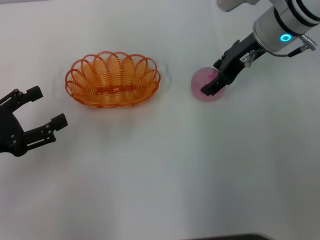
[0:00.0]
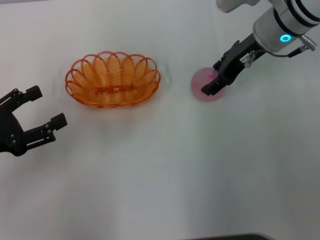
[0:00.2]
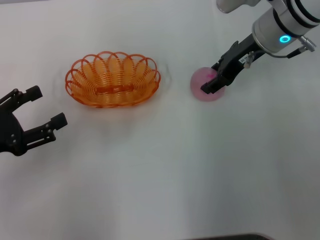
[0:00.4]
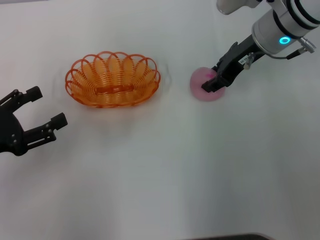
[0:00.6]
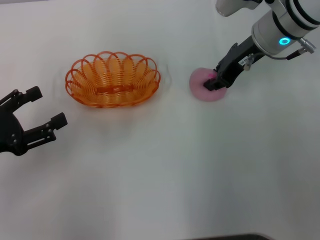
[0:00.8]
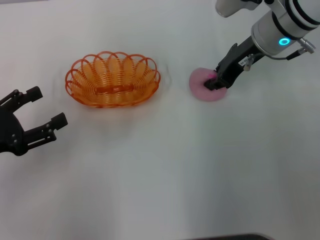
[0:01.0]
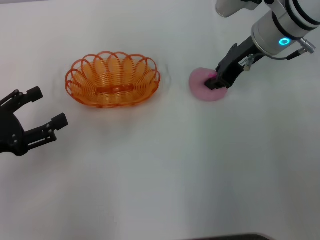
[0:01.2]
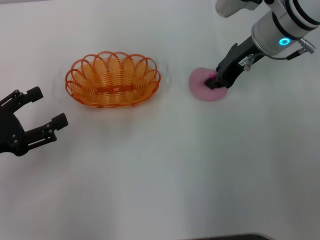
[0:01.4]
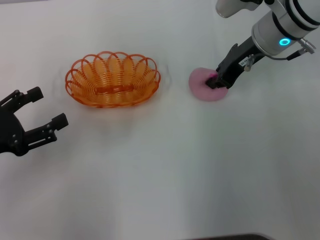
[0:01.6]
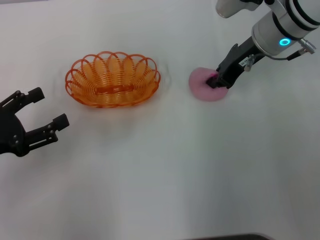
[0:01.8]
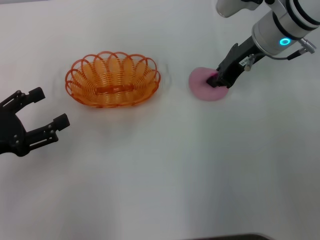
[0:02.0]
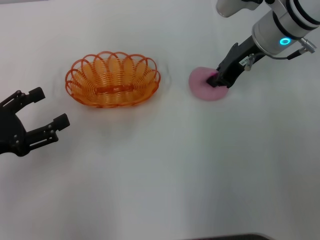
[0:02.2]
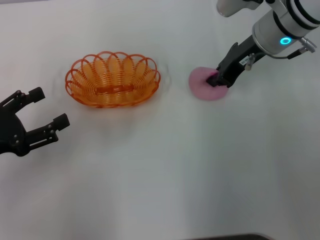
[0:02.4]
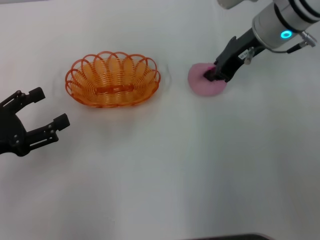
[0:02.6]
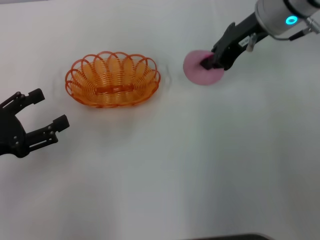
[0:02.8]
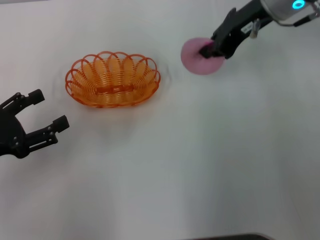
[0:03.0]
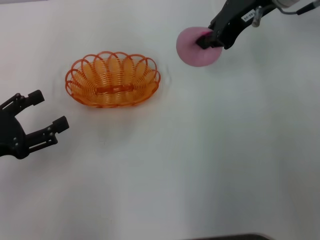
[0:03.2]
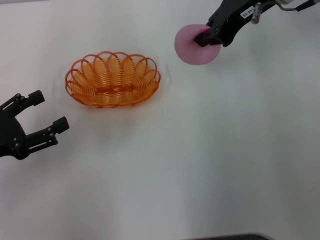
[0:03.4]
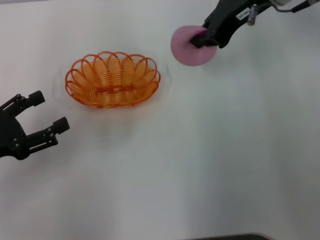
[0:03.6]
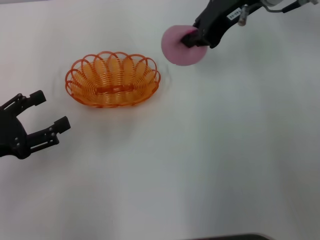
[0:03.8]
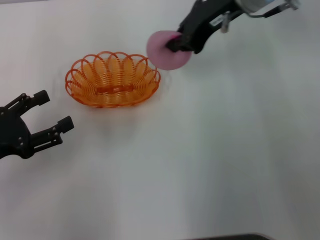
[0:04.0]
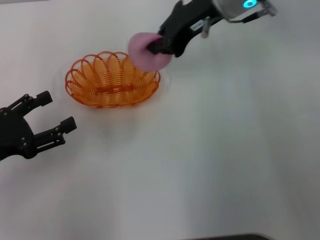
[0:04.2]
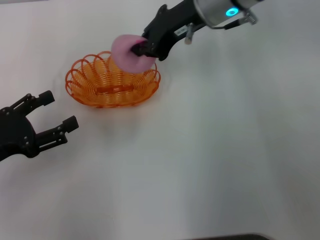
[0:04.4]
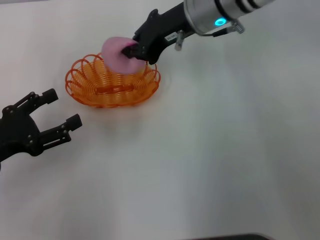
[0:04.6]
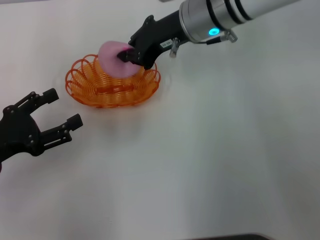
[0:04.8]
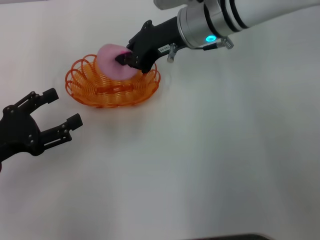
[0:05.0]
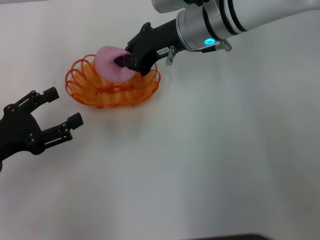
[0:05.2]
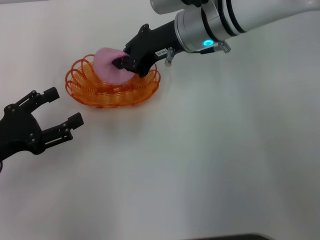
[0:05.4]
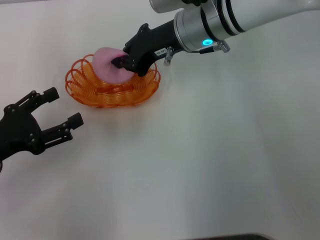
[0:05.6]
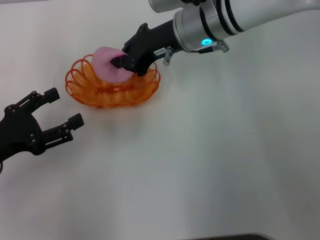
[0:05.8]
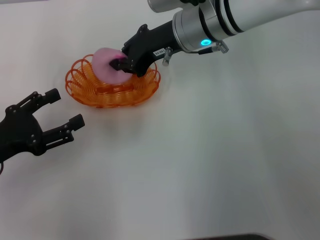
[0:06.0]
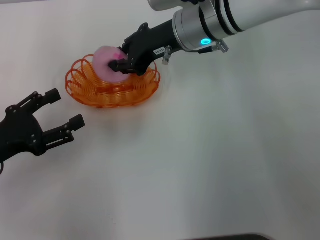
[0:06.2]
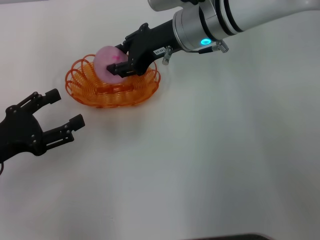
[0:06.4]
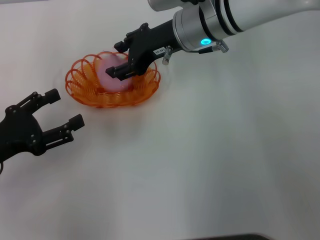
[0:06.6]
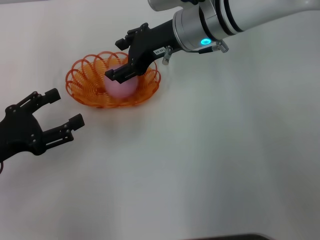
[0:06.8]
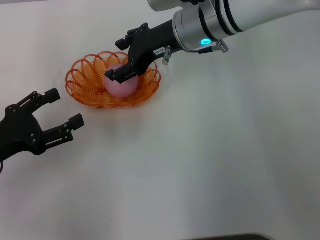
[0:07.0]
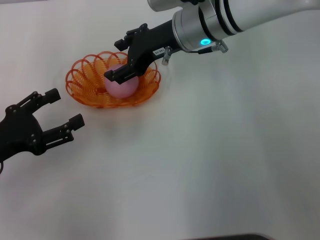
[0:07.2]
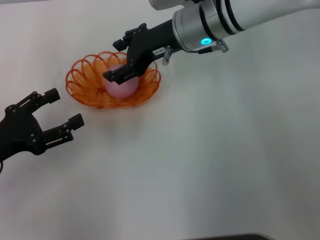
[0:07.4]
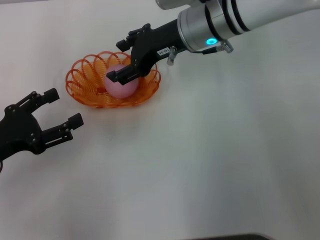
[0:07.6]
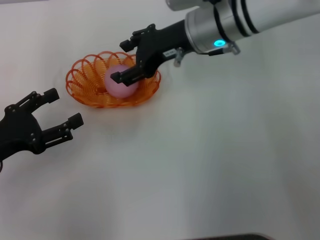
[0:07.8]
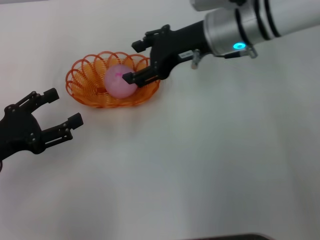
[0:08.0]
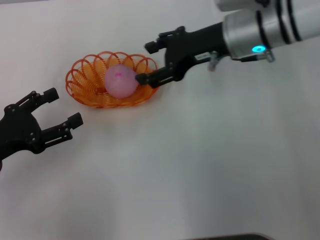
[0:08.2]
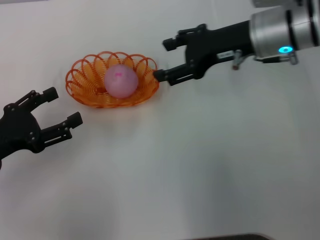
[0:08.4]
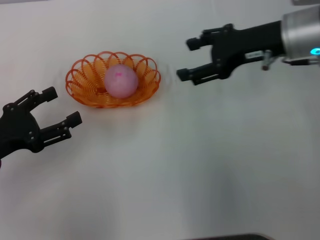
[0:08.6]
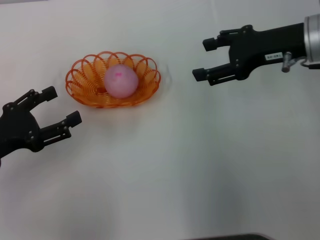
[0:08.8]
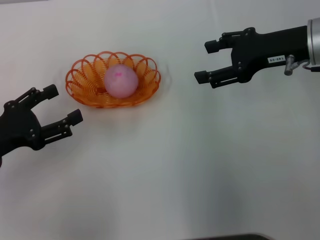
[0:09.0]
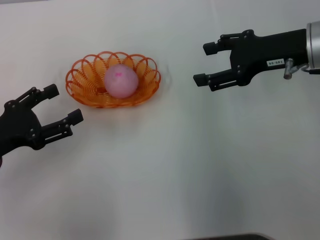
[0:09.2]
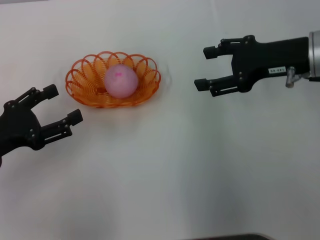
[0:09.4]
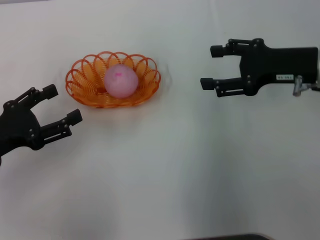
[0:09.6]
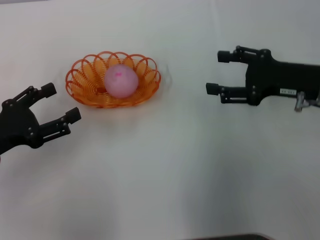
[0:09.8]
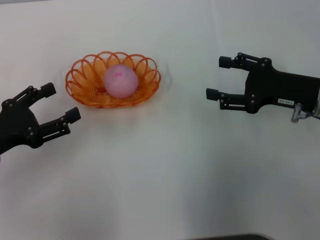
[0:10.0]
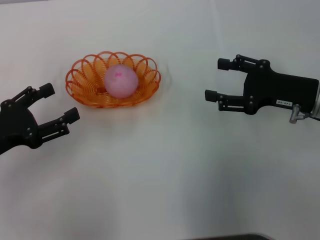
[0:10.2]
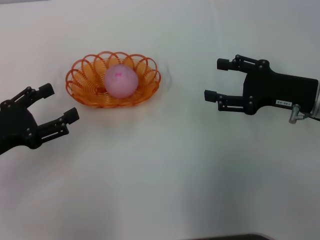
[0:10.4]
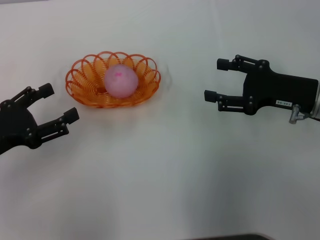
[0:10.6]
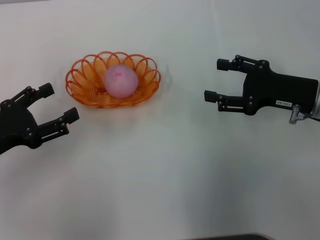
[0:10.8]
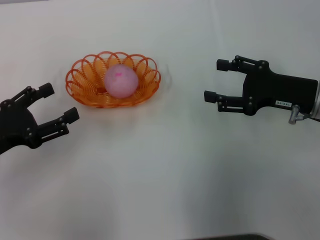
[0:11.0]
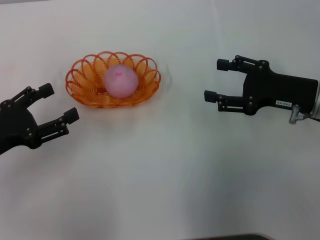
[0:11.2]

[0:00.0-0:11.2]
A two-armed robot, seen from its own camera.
Step, 0:00.0 to 0:03.4: Pick up the peach with the right gripper.
Step, 0:03.6 to 0:08.6: Place the peach into the basket with the right gripper.
0:00.0 to 0:01.6: The right gripper closes.
0:01.6 to 0:03.2: The right gripper heads upward, covering about 10 cm.
0:03.2 to 0:04.8: The right gripper heads to the left and downward, covering roughly 10 cm.
0:04.8 to 0:06.4: The grippers move only a little.
0:06.4 to 0:08.0: The right gripper opens.
0:08.0 to 0:09.6: The right gripper shifts roughly 15 cm to the right and backward.
0:09.6 to 0:11.2: The right gripper goes approximately 5 cm downward.
